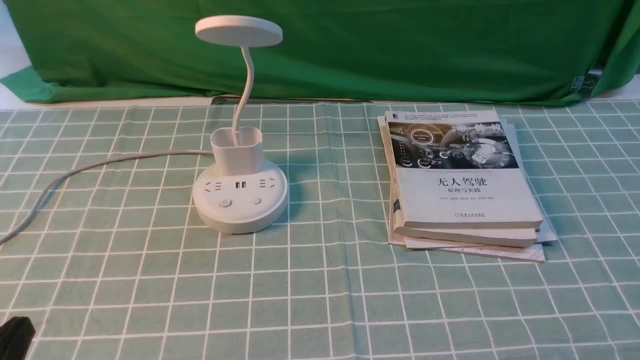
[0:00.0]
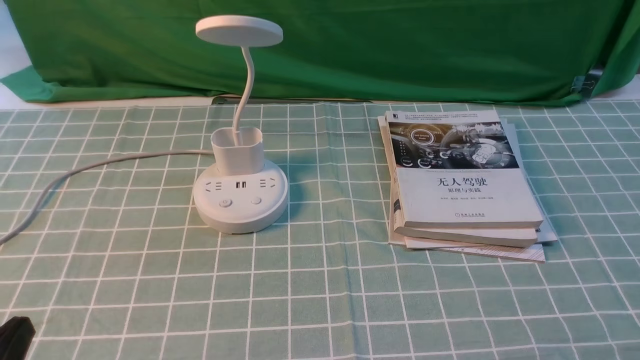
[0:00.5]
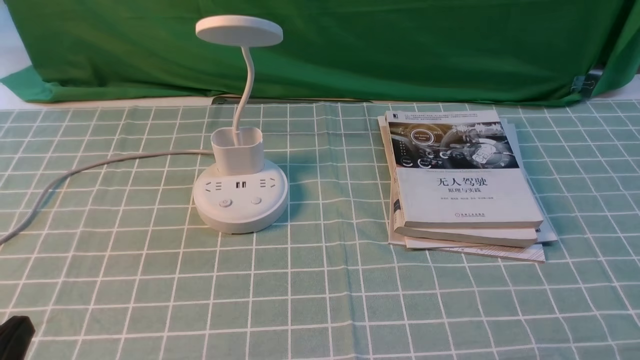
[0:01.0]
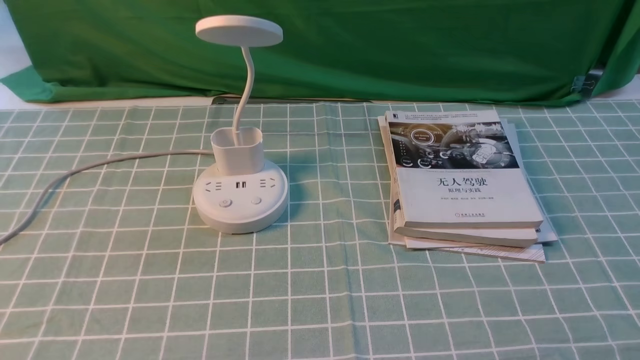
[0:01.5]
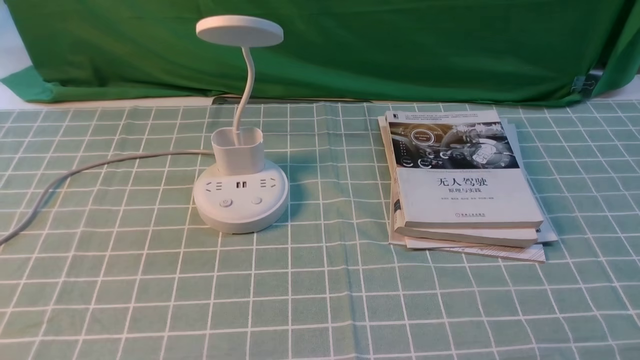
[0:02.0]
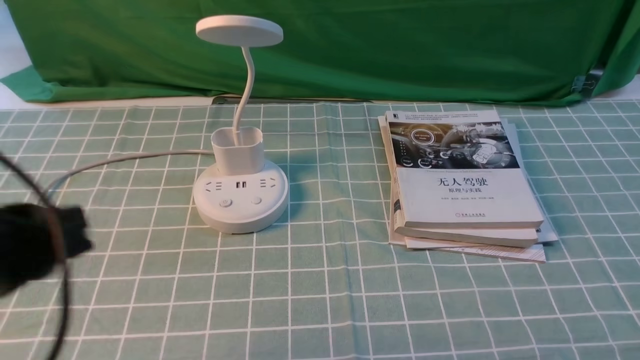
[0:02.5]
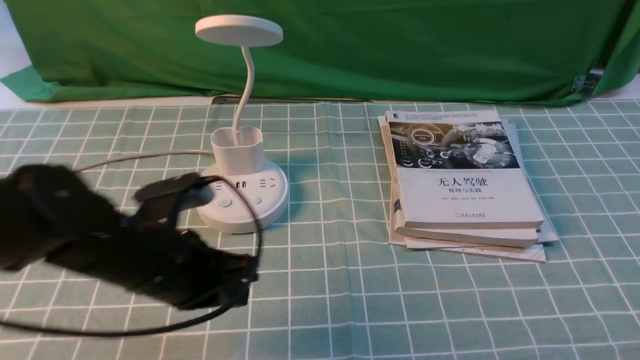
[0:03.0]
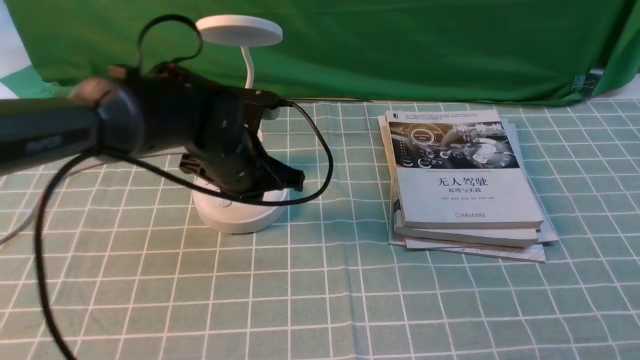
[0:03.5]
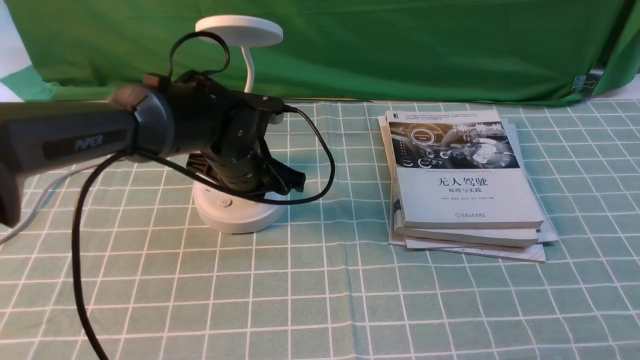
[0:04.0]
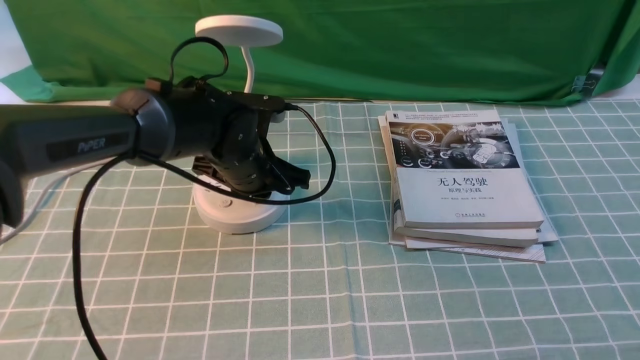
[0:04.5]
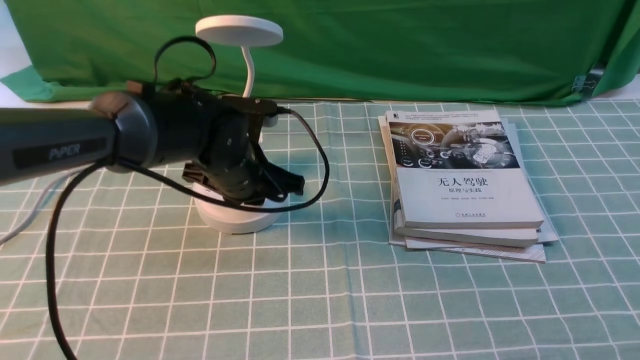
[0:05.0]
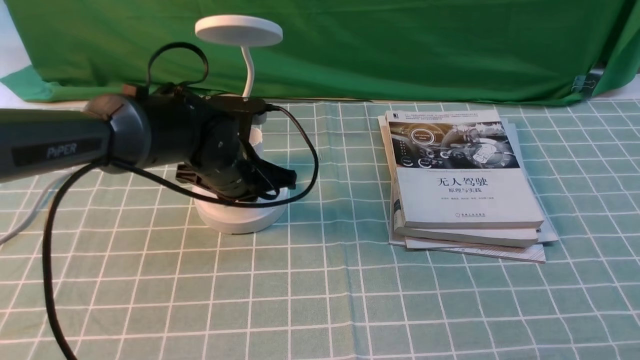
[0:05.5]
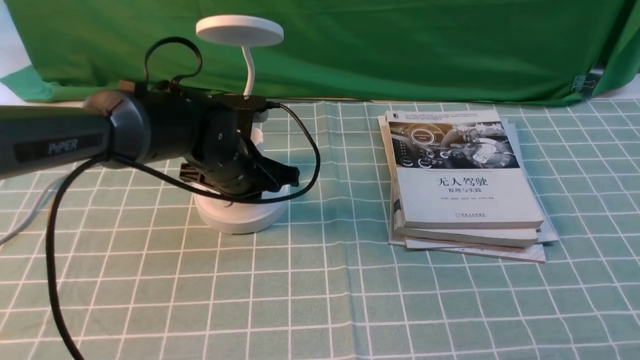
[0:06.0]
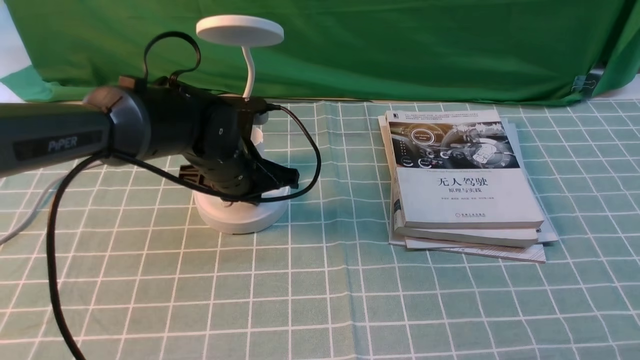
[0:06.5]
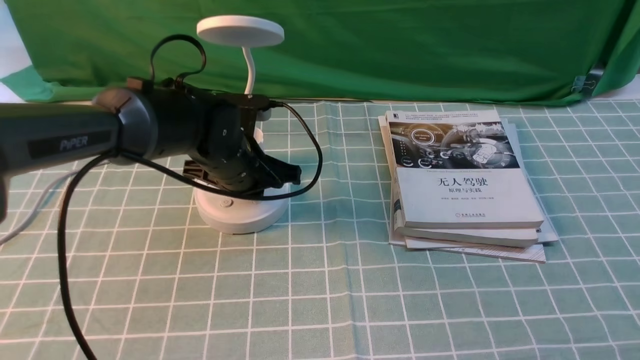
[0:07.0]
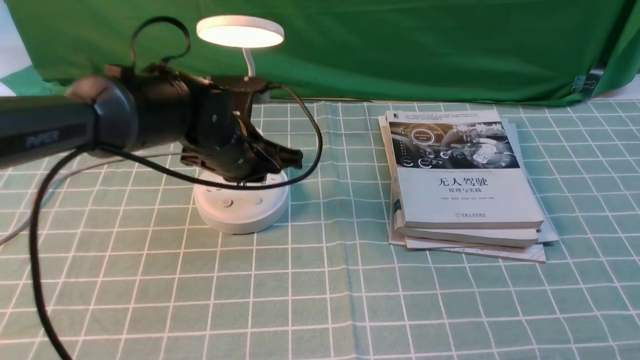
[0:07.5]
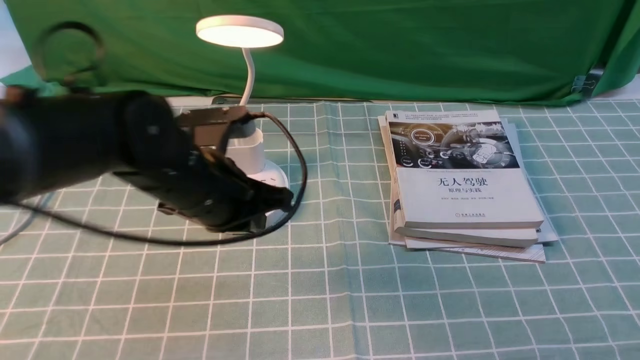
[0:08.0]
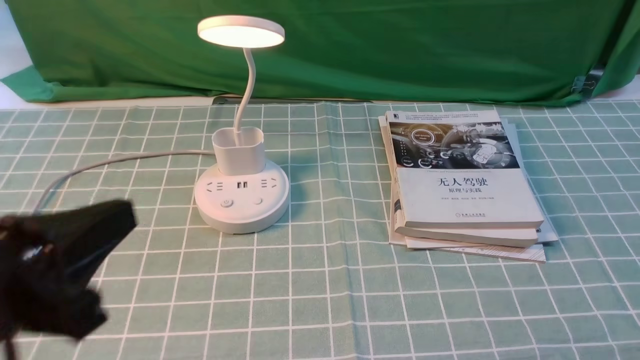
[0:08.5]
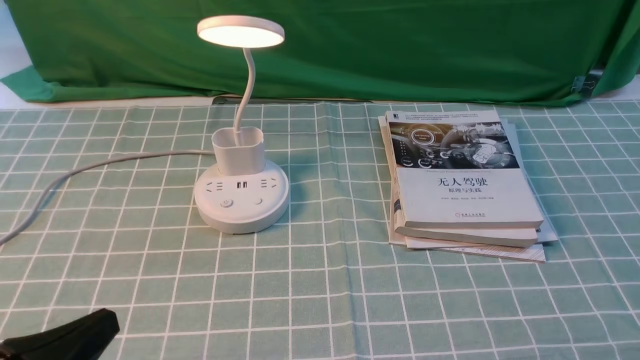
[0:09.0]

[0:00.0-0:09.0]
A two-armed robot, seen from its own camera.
Step, 0:00.0 to 0:07.0: use the left arm to press the button switch on the lamp holder.
0:02.0 to 0:04.5: The left gripper shifts about 40 cm forward, to the right and downward.
0:04.5 to 0:07.0: The grippers make only small movements.
0:07.0 to 0:09.0: The left gripper heads backward and to the left, covering some 35 cm.

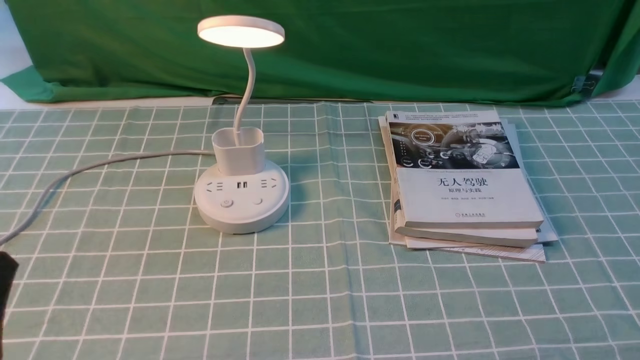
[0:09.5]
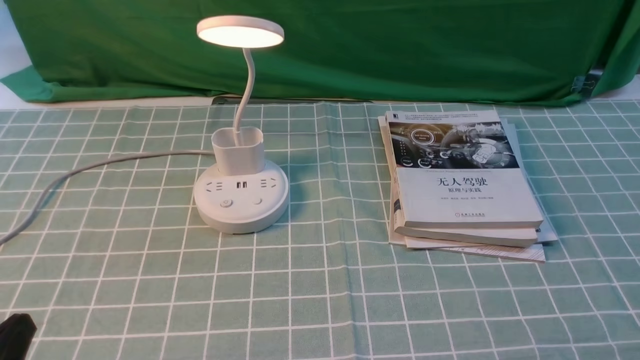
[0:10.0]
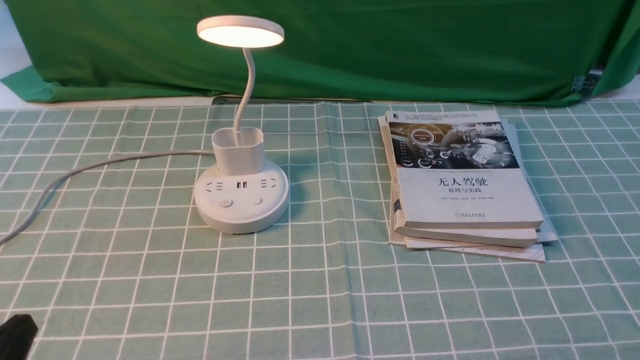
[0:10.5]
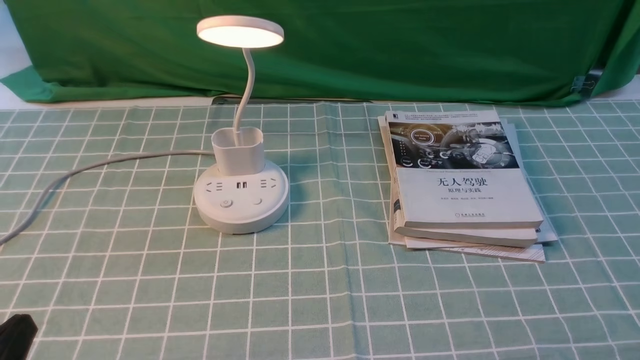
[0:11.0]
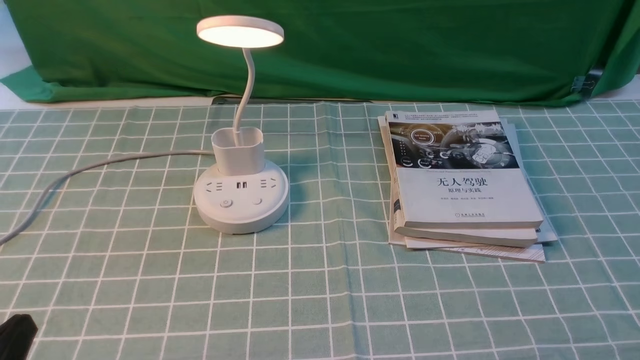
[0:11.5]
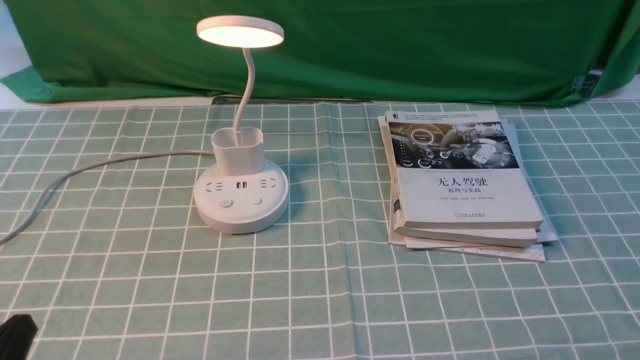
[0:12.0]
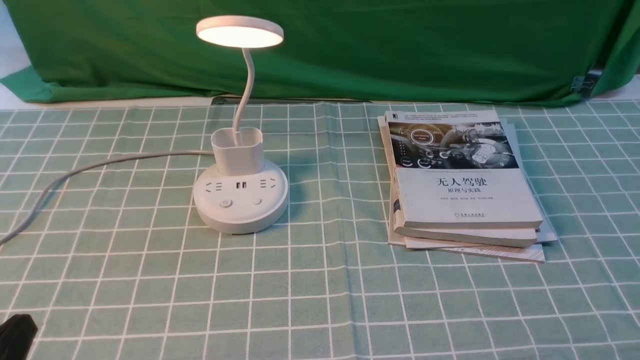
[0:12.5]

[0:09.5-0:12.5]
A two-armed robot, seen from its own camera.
0:09.5 to 0:11.0: The grippers move only a little.
0:11.0 to 0:12.5: Both grippers stay about where they are.
